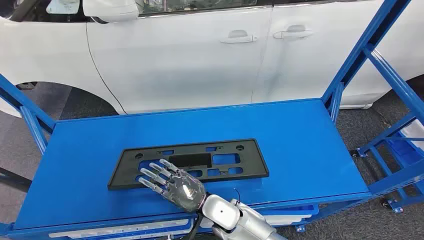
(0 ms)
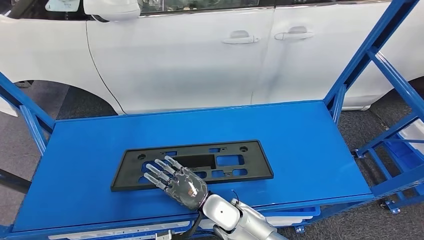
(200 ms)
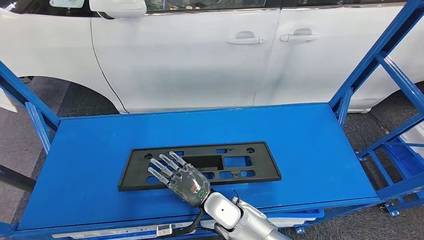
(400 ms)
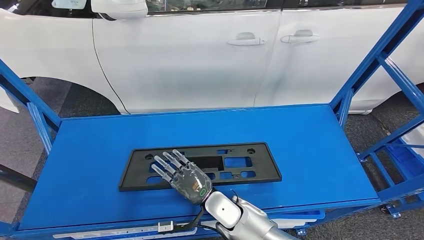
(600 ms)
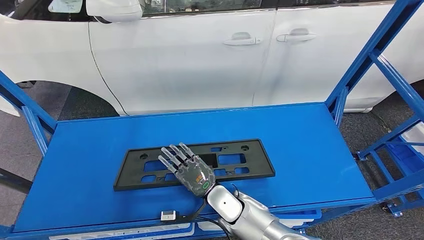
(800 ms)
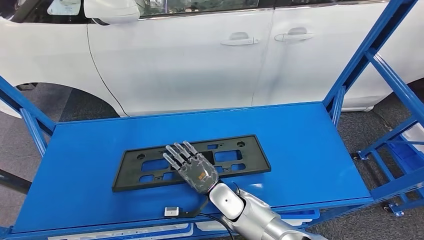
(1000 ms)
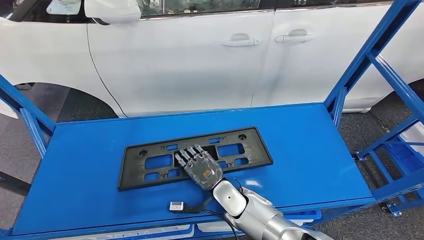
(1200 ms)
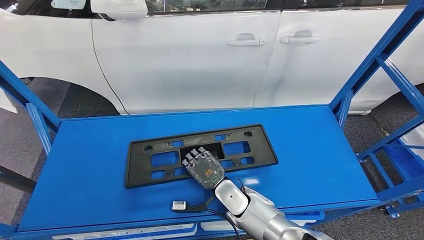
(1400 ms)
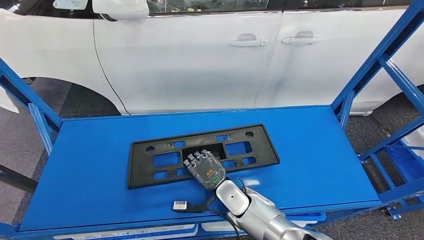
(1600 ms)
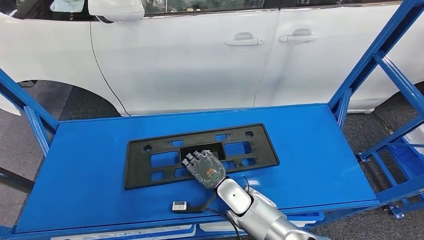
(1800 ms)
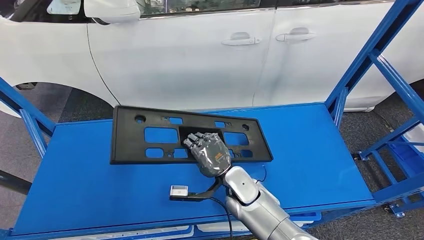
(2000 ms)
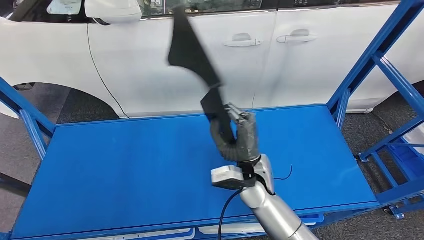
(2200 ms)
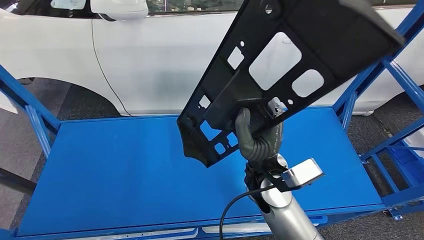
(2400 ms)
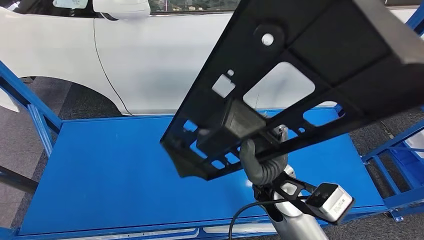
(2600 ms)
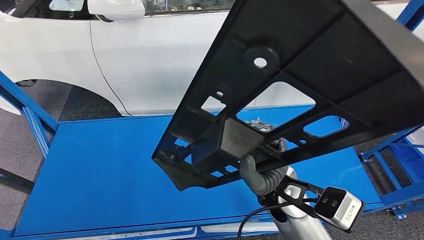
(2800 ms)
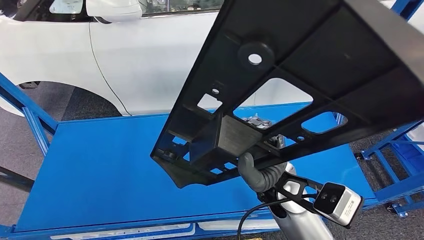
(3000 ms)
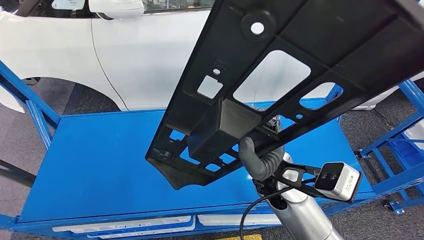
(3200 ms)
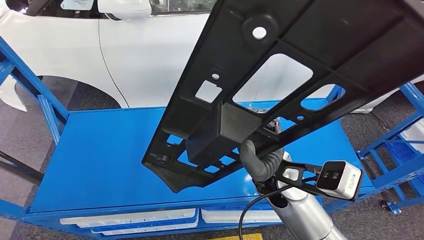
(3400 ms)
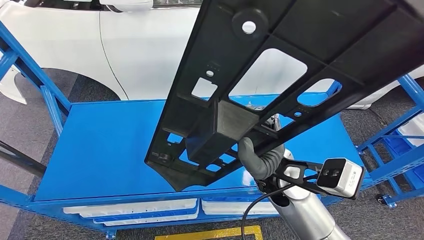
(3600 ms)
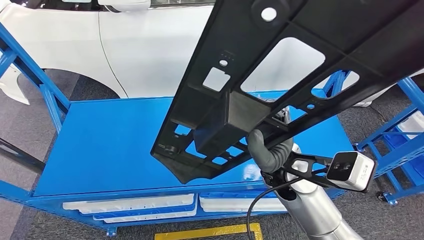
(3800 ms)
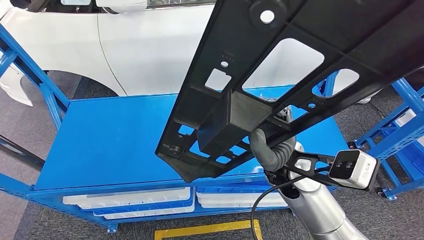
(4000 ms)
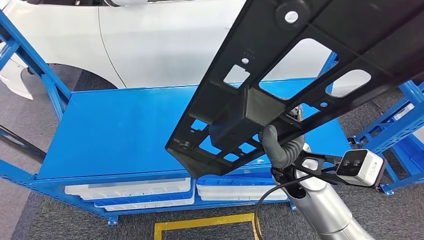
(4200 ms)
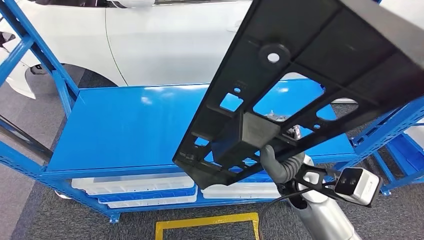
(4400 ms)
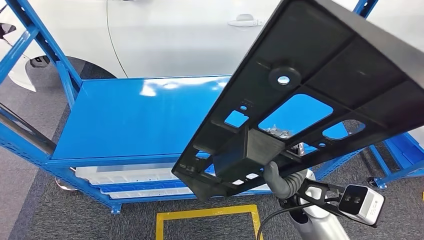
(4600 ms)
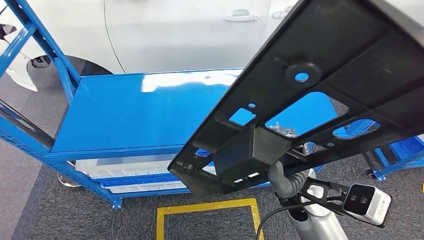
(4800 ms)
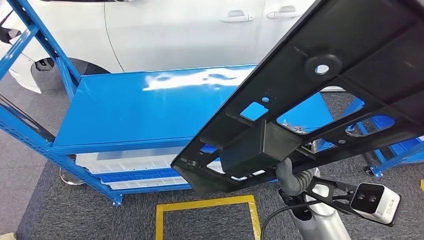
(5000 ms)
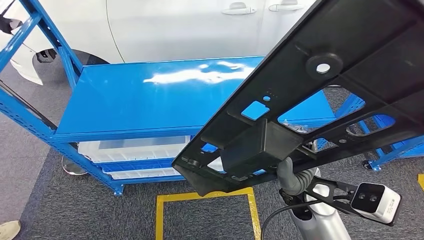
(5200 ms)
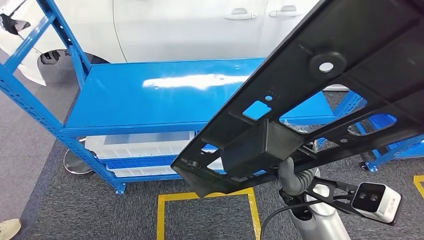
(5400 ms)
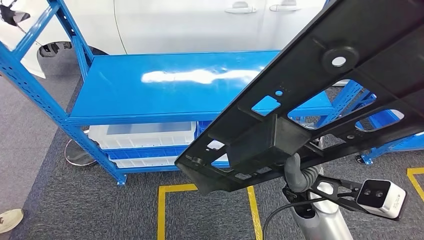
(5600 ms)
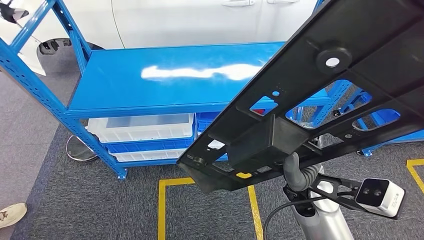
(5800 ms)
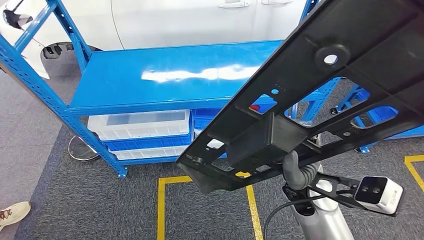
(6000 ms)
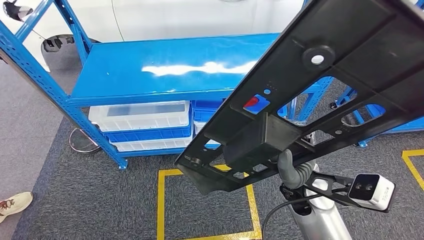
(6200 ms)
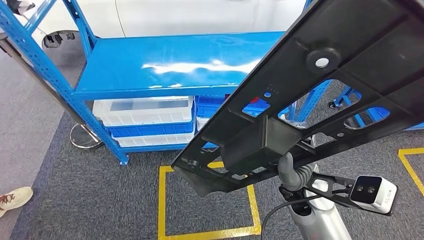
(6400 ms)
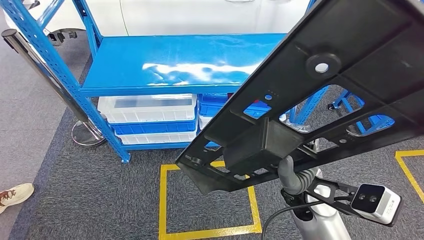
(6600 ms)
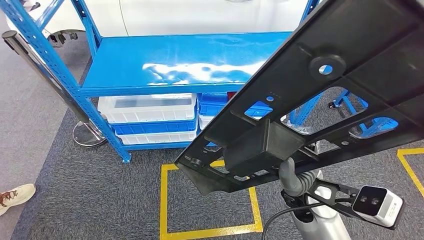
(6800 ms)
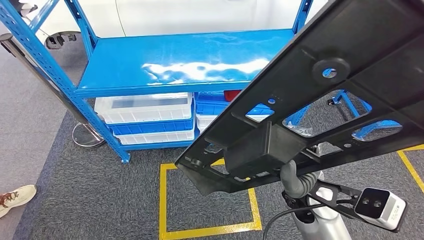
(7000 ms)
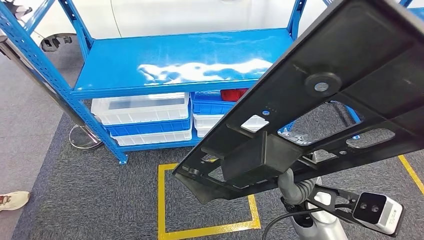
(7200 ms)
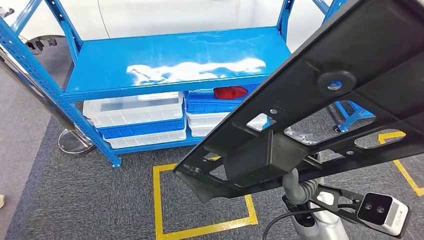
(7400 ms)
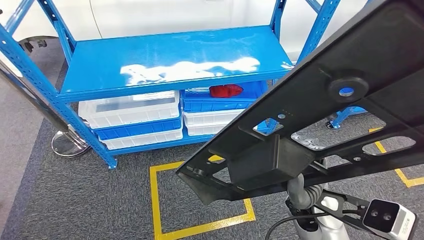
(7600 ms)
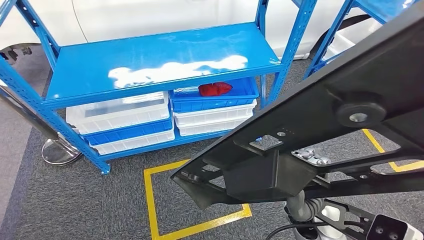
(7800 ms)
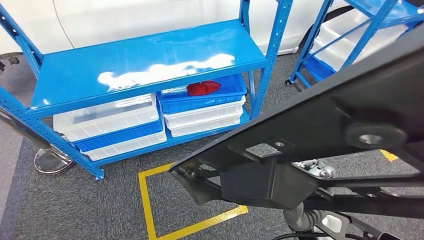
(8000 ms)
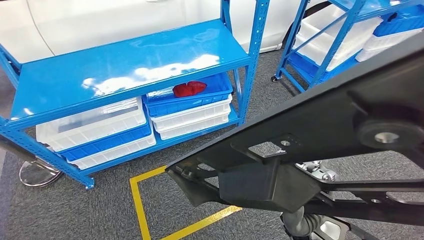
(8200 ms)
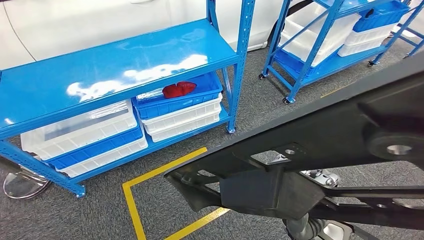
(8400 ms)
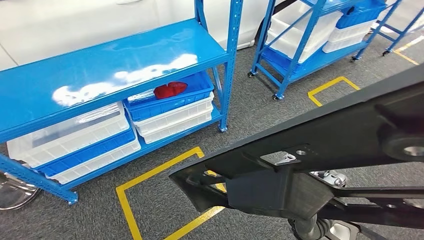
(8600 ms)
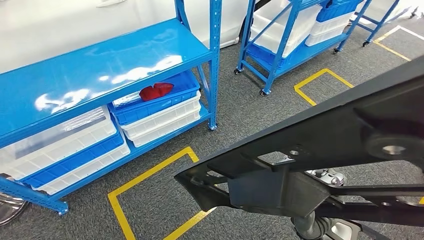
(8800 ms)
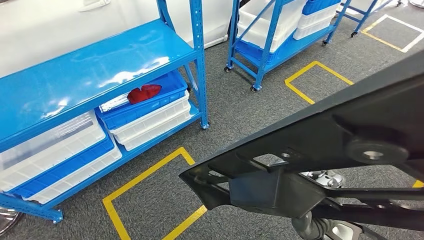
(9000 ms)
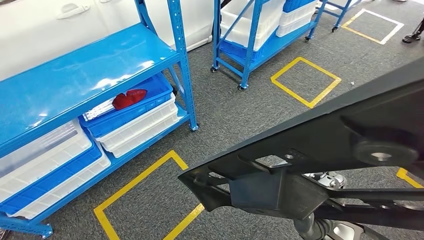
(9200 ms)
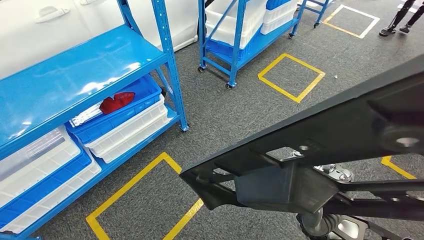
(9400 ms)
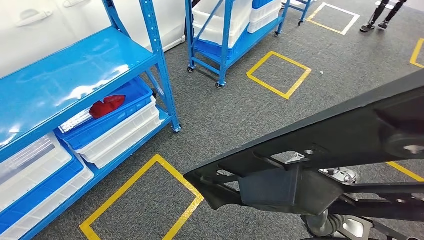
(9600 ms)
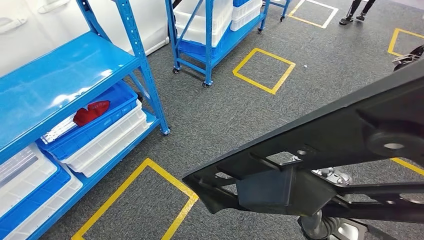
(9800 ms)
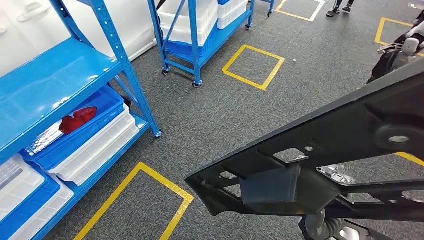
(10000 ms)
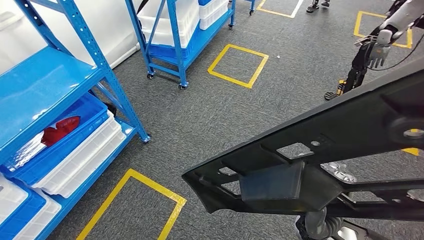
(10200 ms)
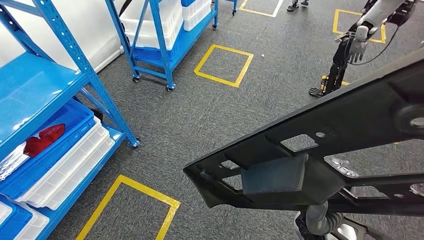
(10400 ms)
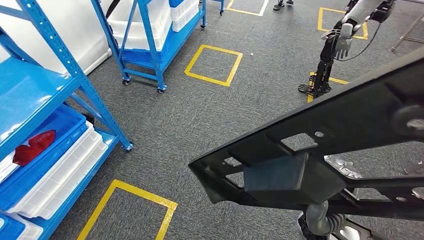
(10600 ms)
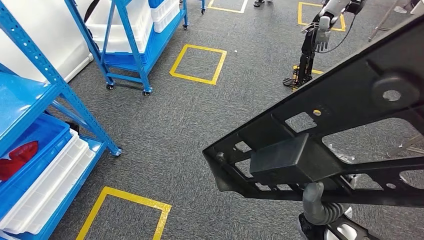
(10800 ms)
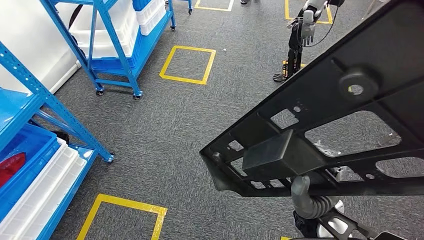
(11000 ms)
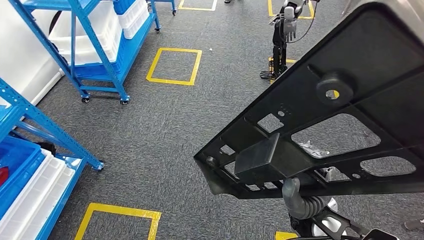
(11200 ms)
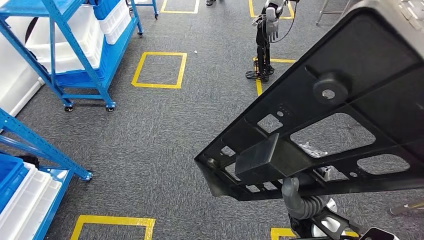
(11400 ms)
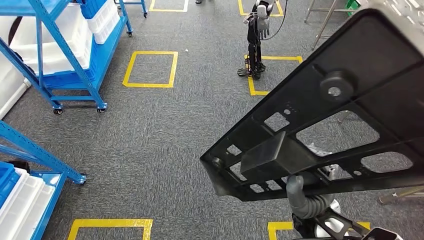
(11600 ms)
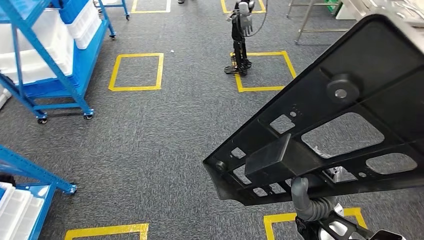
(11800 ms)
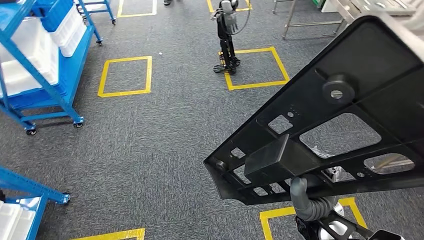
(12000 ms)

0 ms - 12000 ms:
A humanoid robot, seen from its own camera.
Step, 0 ms - 3000 ms: Pick up the small parts from the shelf.

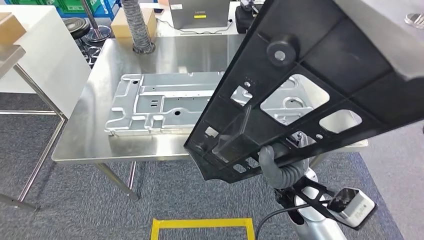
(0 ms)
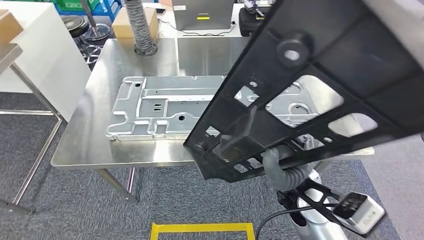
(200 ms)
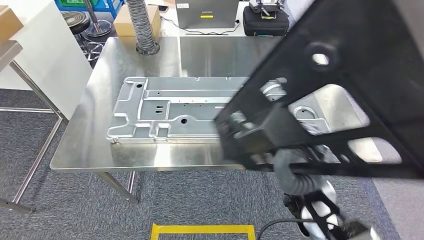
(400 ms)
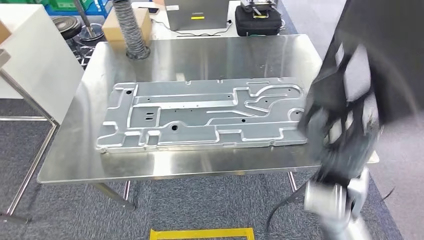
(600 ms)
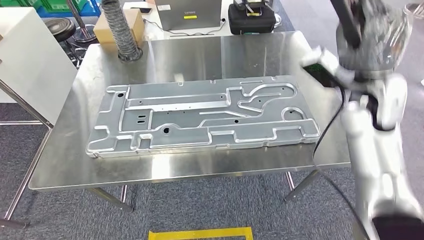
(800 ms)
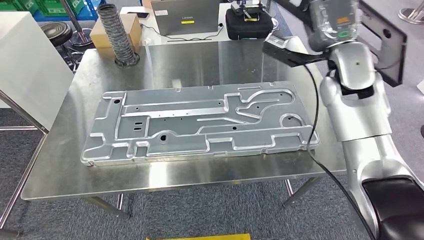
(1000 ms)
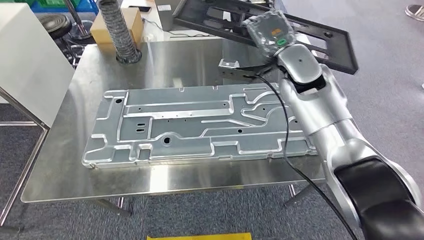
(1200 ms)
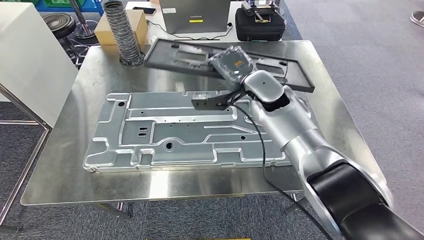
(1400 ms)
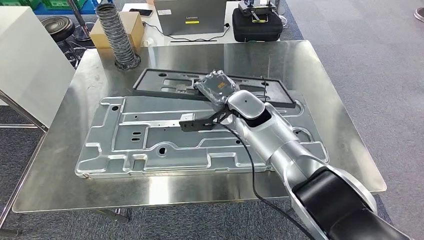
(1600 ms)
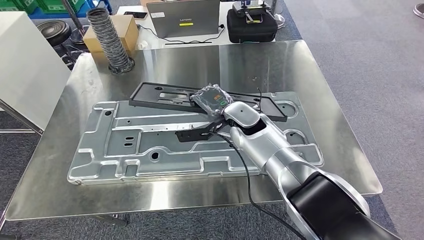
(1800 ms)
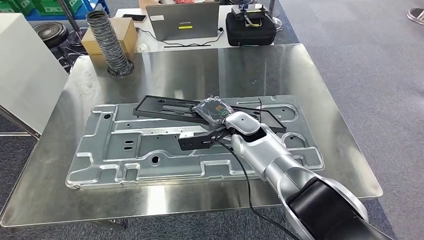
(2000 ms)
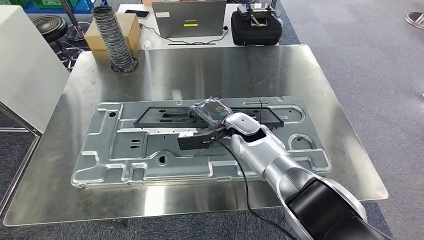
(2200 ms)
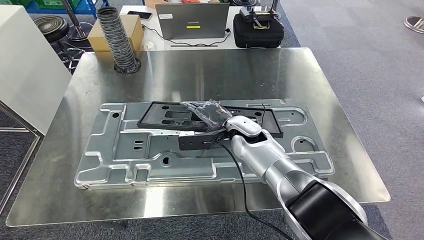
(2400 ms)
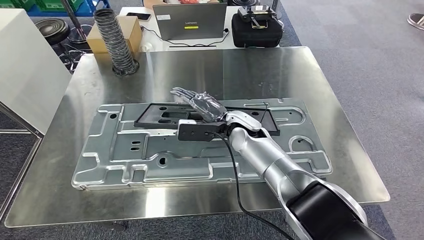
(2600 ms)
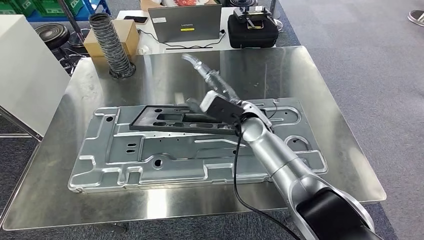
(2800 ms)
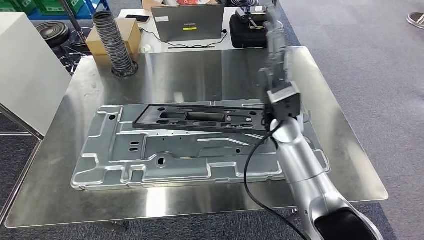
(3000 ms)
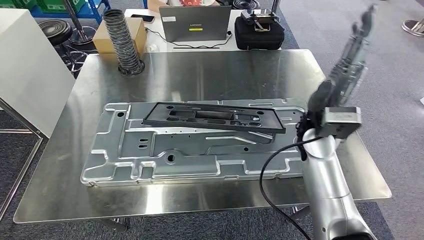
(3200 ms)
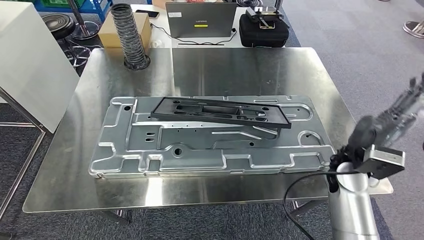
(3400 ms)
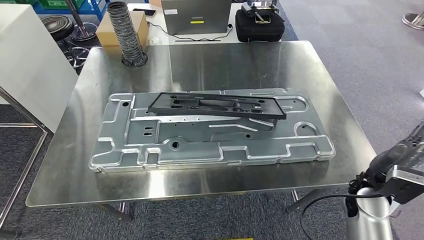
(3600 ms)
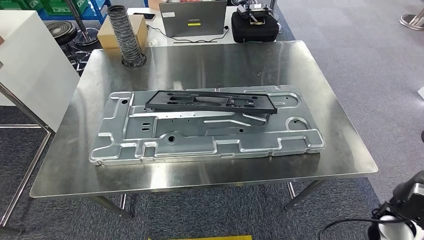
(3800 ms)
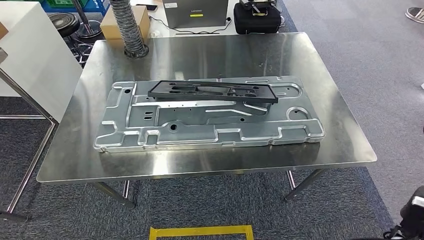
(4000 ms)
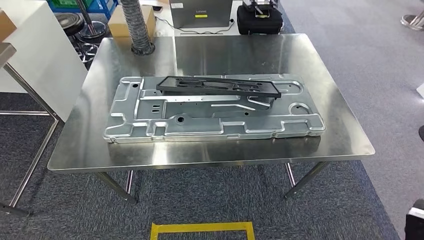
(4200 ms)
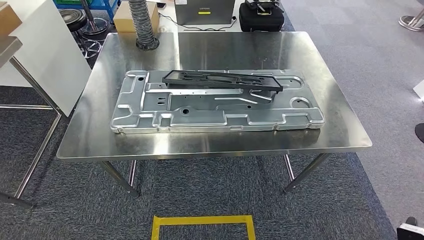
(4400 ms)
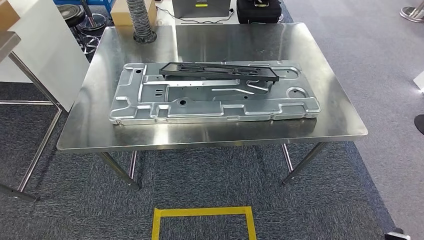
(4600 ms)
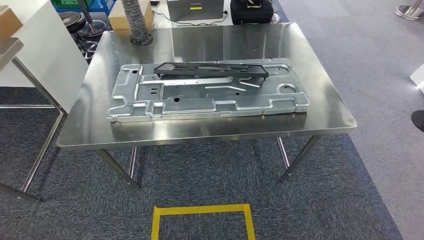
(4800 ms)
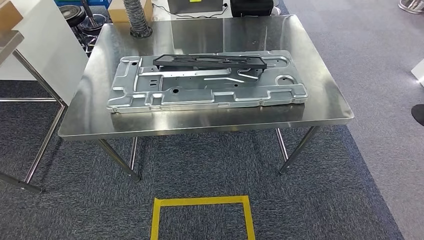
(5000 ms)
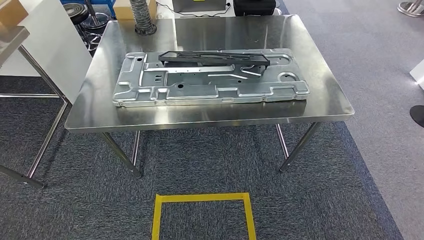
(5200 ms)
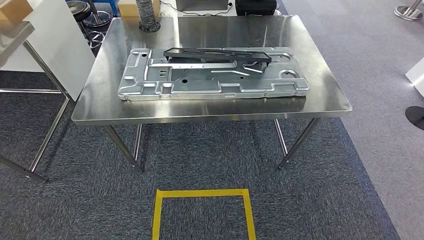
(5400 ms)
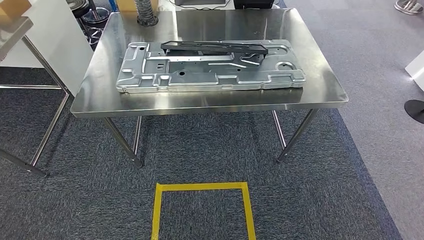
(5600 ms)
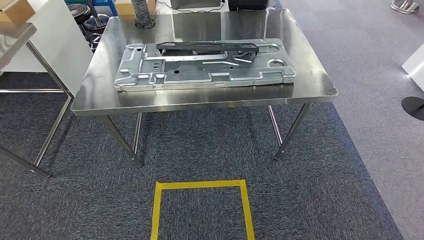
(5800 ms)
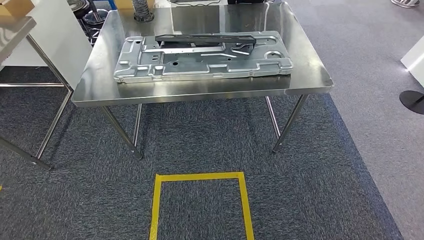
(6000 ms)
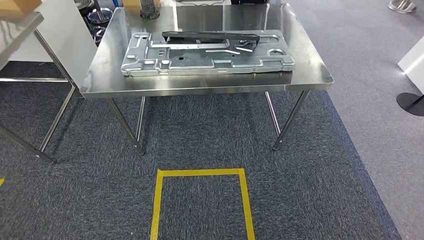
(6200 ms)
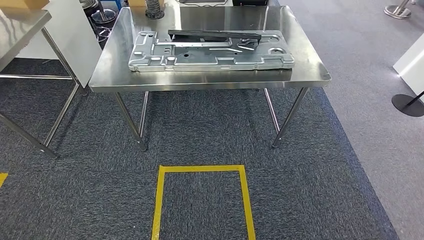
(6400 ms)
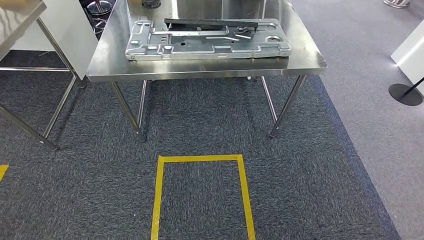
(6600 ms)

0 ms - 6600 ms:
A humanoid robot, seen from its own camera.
Step, 600 ms - 3800 ms: Insert the small parts into the corresponding holes on the workbench.
Step, 4000 ms - 6600 ms: Move to the initial position at the workbench.
